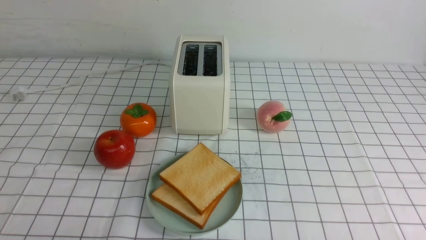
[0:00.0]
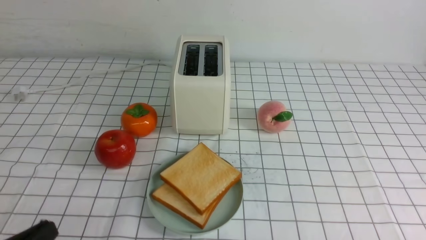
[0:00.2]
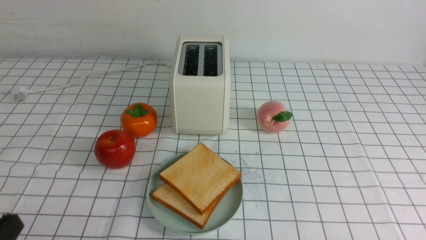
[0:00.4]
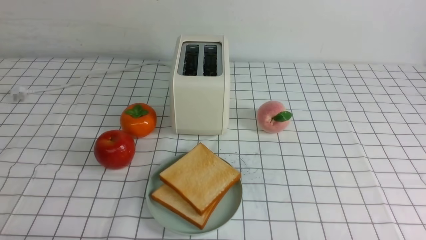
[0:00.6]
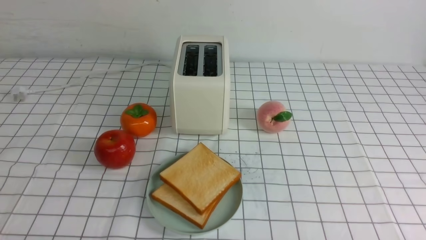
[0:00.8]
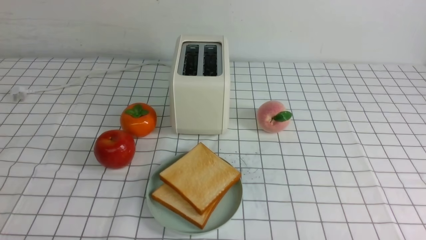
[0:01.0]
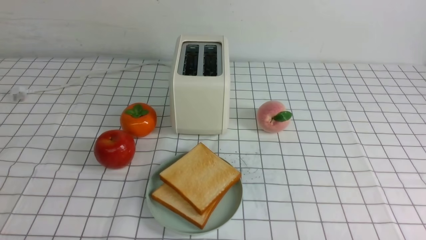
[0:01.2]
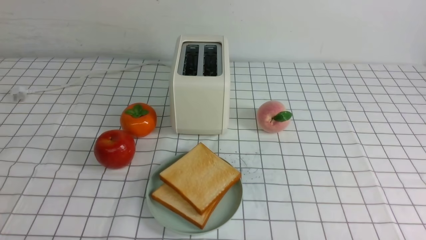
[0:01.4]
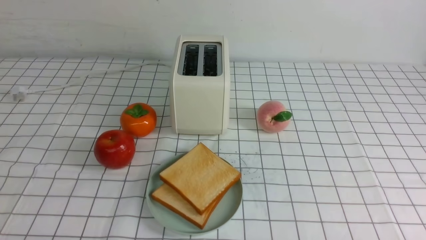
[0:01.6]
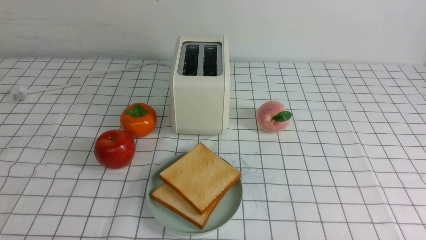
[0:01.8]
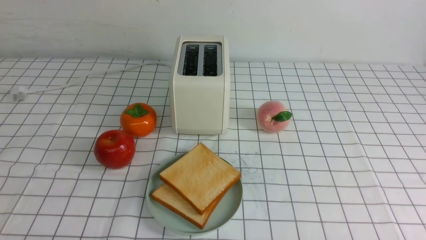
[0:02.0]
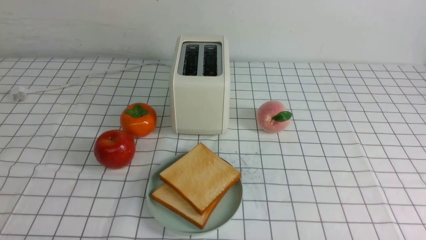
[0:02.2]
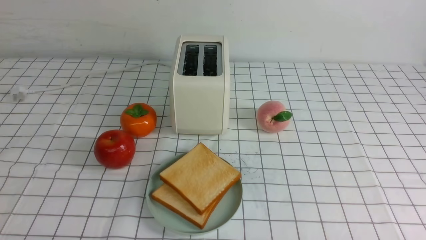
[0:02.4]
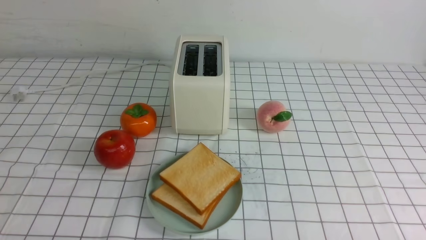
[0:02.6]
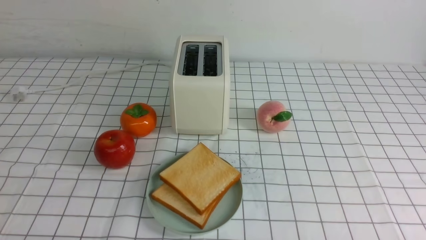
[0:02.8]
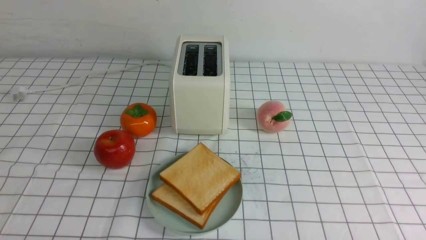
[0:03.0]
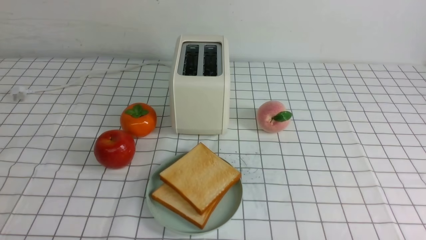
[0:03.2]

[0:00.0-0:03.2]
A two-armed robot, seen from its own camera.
Task of the whole recording: take toasted bread from bread machine on white checkered table place on plate.
0:01.6 to 0:03.2: The two grippers keep their place.
